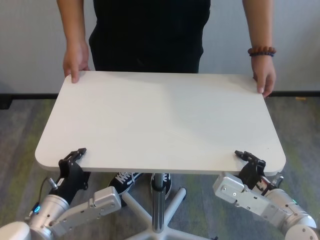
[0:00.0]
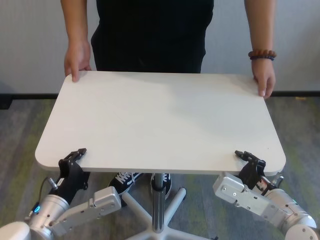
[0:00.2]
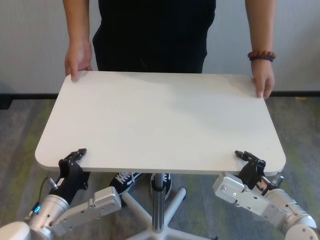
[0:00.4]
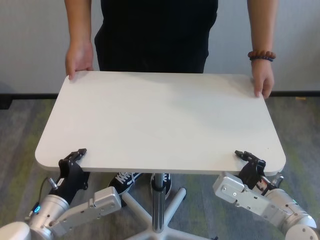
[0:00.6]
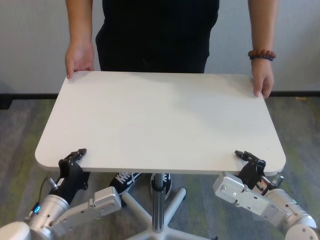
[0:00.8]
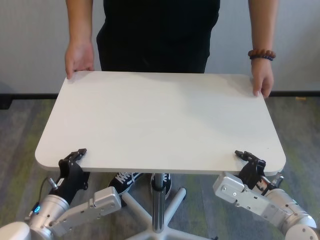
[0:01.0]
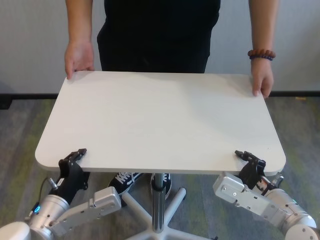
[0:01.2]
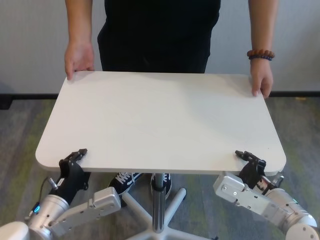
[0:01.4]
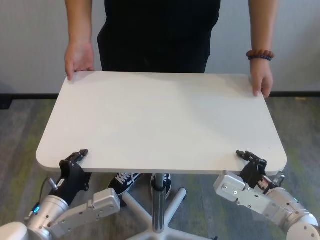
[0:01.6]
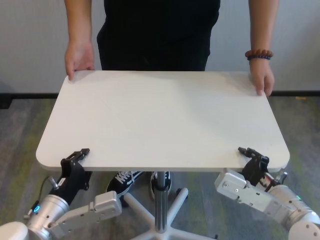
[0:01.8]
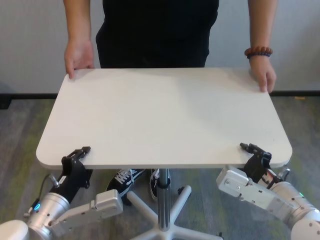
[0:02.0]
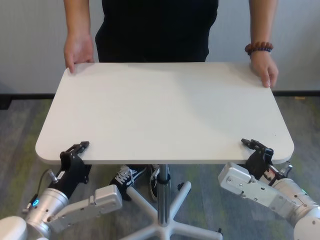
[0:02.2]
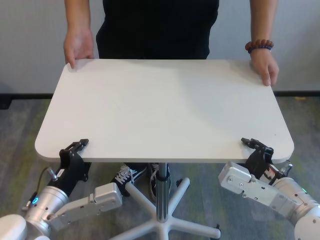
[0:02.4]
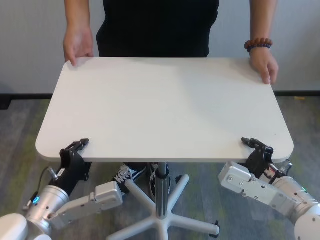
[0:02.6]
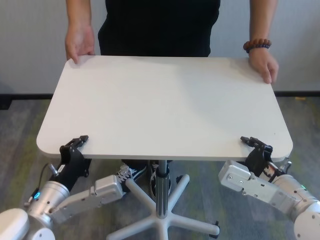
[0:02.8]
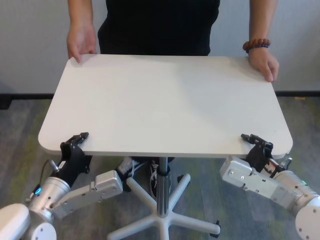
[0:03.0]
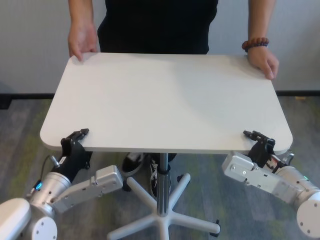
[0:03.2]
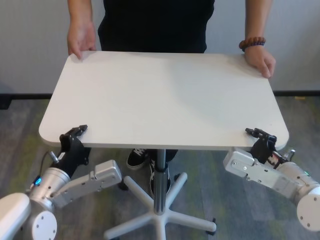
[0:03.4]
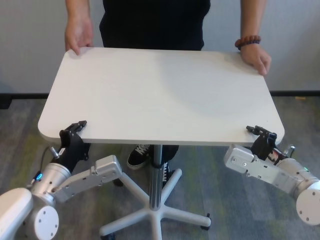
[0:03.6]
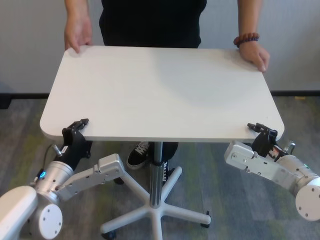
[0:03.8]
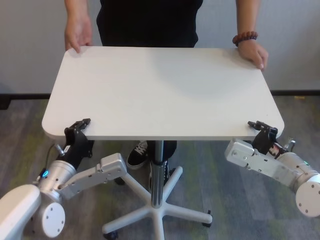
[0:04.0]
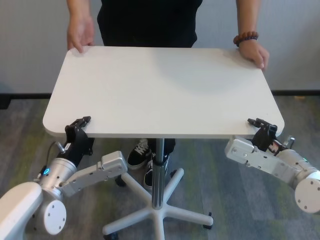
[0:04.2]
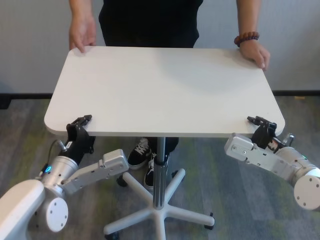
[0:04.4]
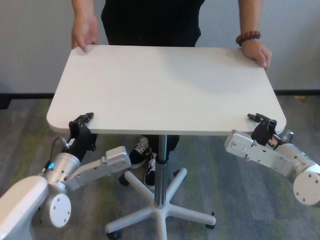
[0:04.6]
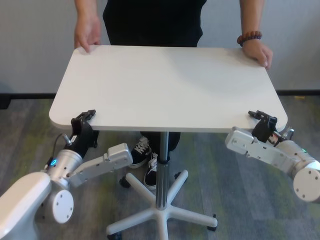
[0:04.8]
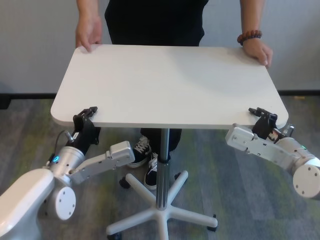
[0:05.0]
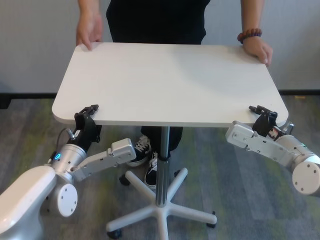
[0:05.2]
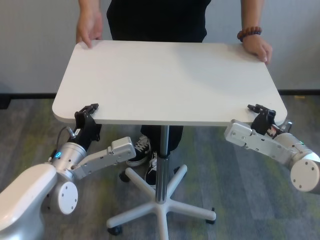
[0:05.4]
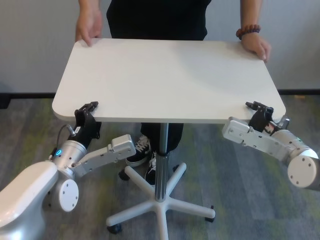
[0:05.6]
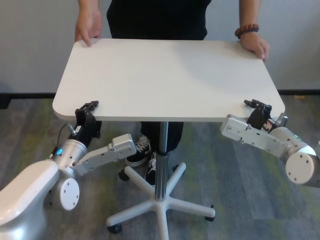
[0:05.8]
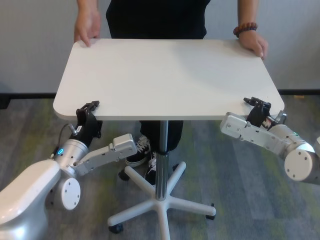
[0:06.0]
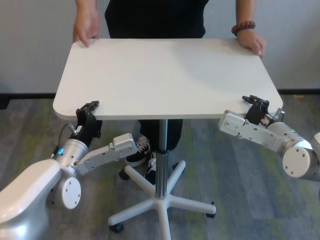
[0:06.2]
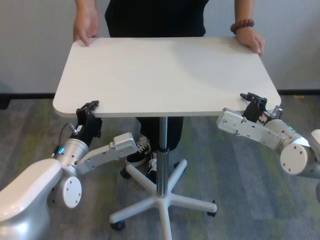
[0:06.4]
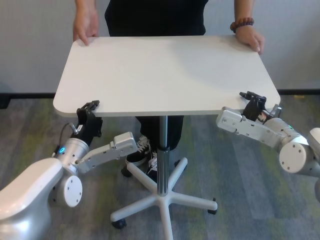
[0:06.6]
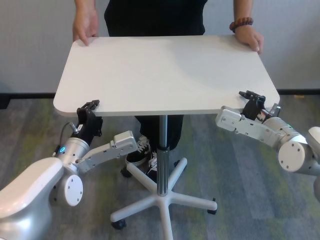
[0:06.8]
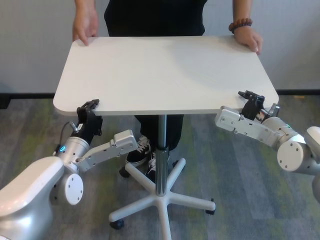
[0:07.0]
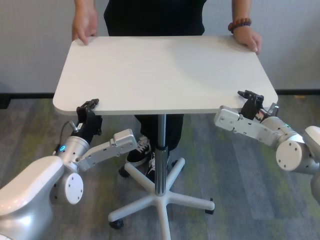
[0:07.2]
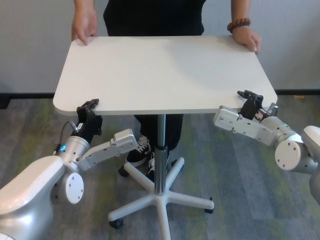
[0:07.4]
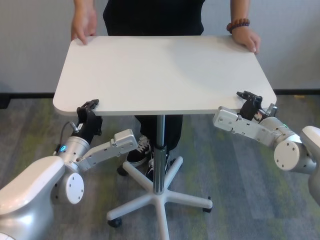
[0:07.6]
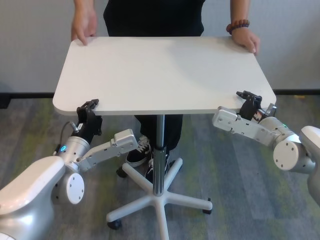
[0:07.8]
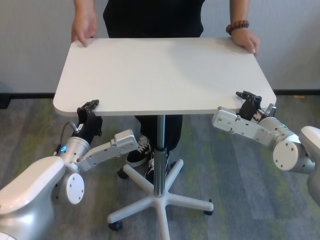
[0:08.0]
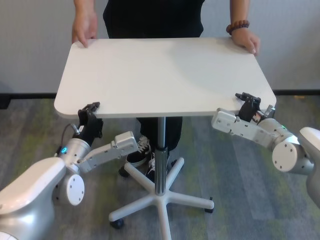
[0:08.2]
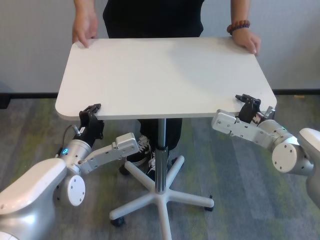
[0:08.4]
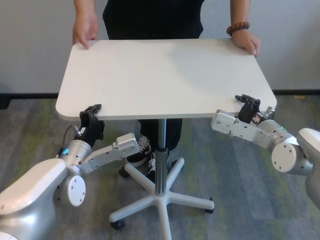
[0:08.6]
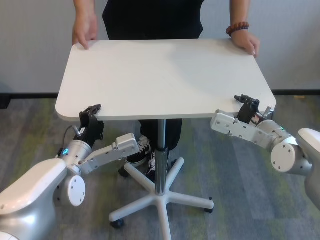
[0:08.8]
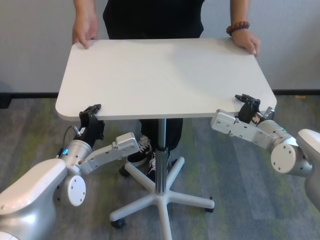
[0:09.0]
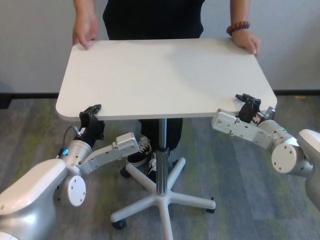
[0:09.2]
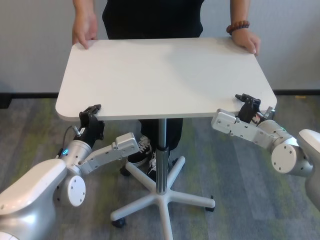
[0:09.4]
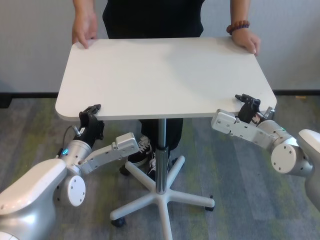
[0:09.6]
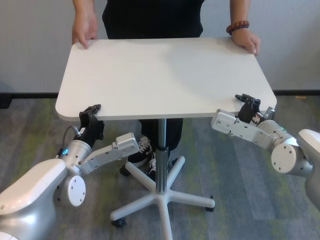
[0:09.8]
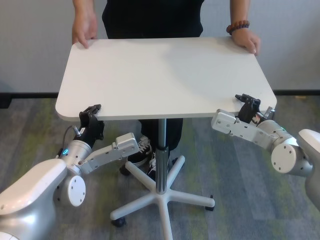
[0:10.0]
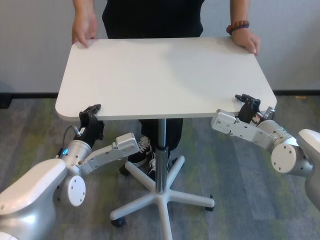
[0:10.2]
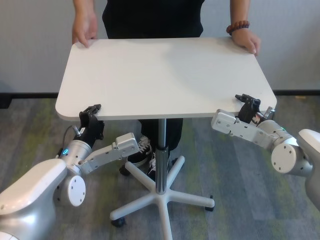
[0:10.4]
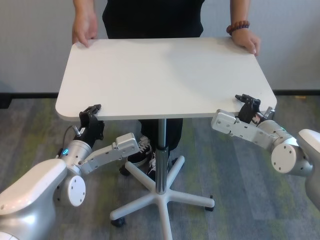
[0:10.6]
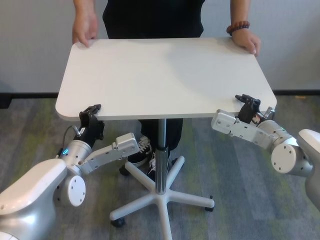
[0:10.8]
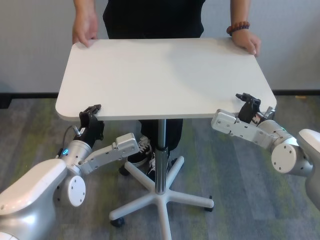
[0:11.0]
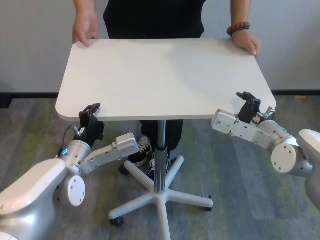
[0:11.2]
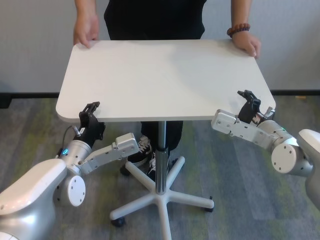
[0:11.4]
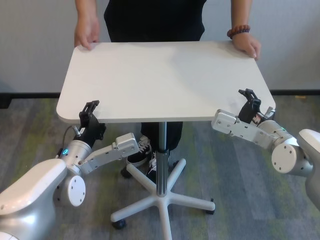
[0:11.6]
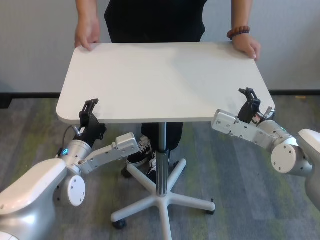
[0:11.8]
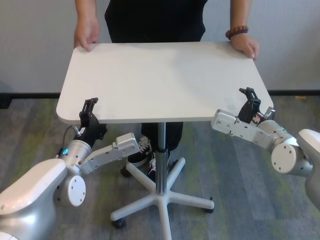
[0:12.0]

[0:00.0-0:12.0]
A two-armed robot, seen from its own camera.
Task of the whole recording: human machine collaborative table moving.
Step, 0:00.8 to 0:11.8: Move the table forward with both grippers.

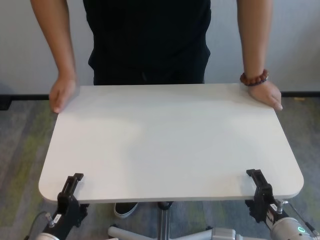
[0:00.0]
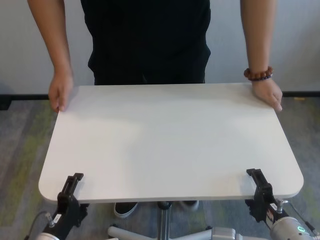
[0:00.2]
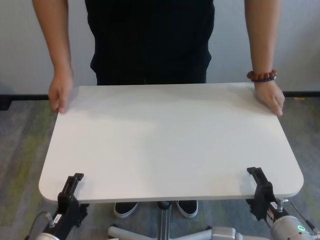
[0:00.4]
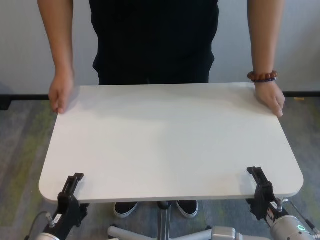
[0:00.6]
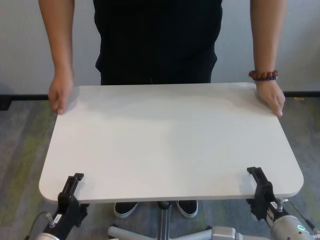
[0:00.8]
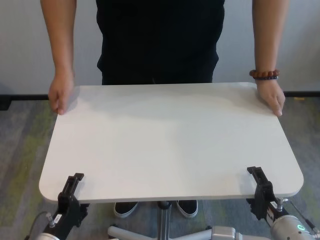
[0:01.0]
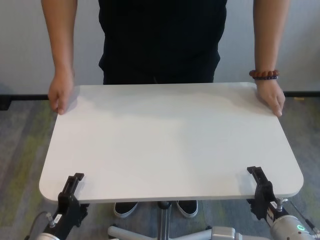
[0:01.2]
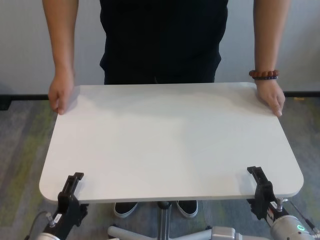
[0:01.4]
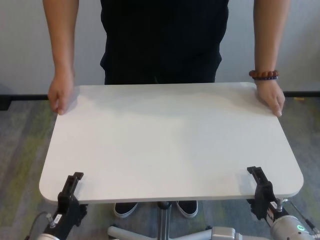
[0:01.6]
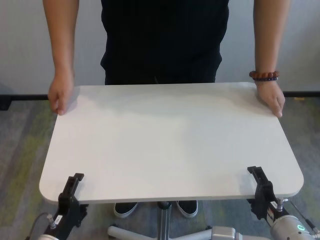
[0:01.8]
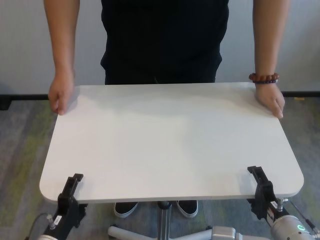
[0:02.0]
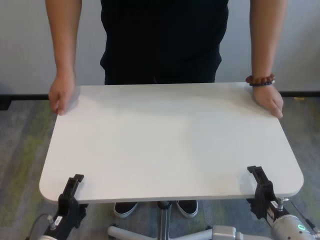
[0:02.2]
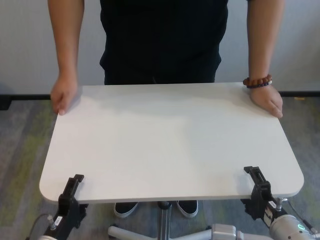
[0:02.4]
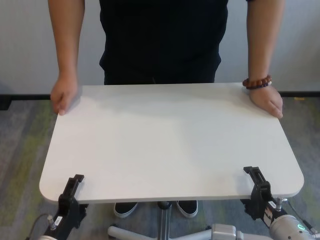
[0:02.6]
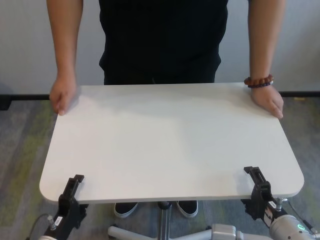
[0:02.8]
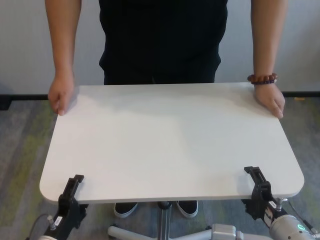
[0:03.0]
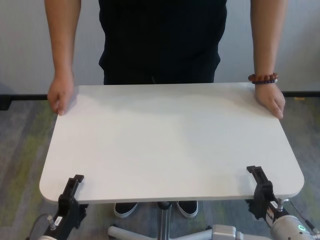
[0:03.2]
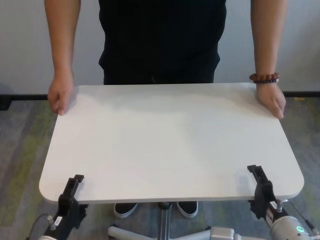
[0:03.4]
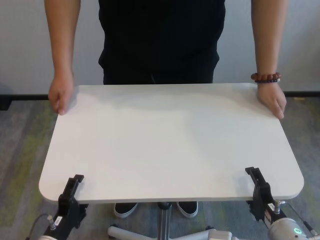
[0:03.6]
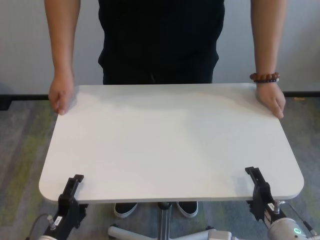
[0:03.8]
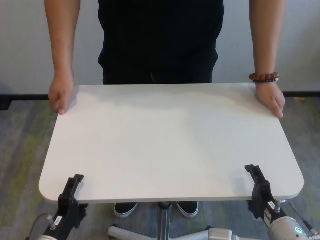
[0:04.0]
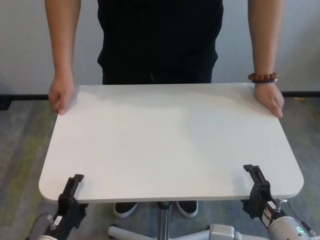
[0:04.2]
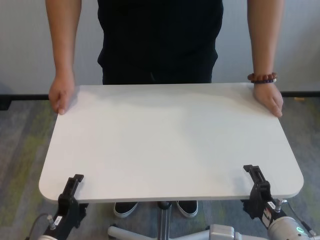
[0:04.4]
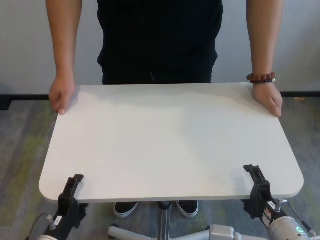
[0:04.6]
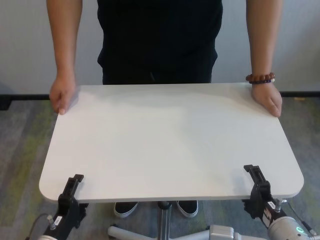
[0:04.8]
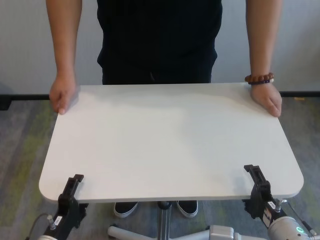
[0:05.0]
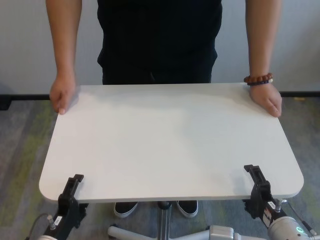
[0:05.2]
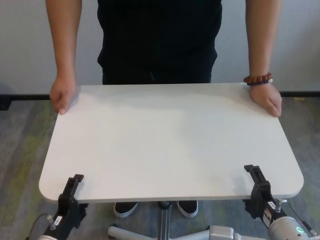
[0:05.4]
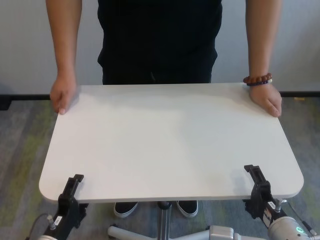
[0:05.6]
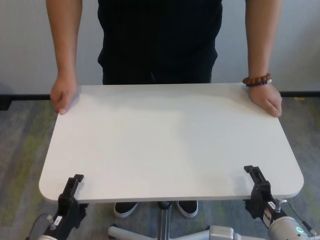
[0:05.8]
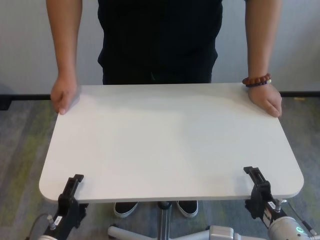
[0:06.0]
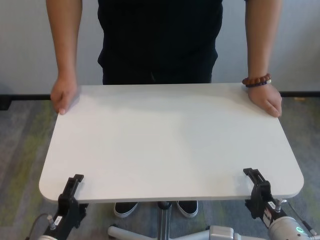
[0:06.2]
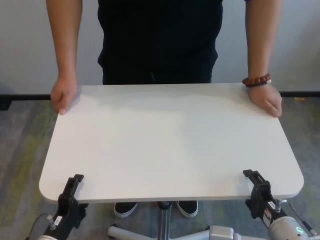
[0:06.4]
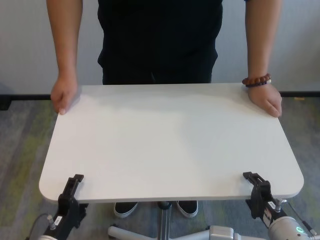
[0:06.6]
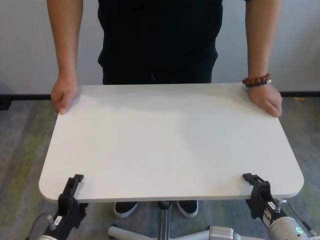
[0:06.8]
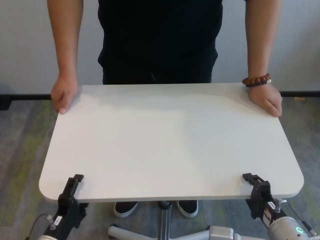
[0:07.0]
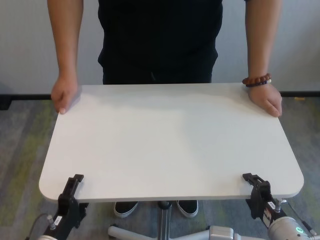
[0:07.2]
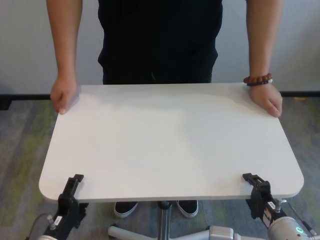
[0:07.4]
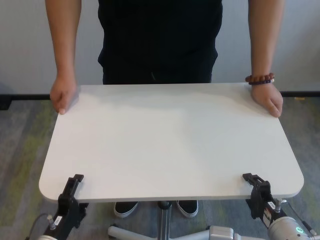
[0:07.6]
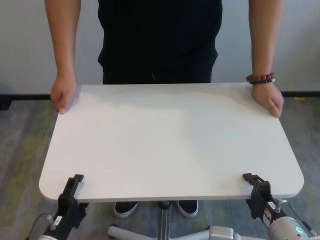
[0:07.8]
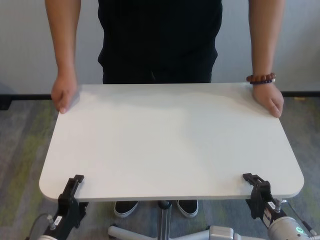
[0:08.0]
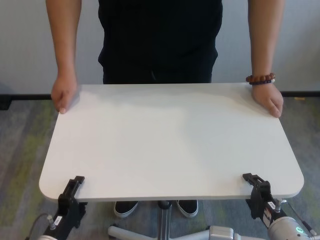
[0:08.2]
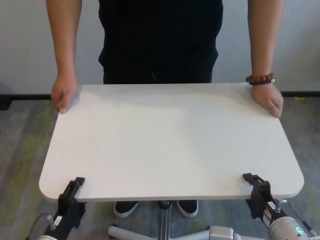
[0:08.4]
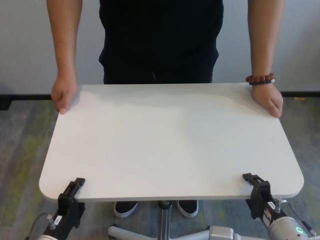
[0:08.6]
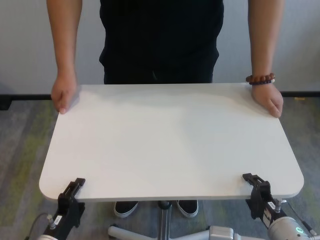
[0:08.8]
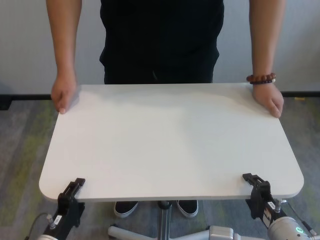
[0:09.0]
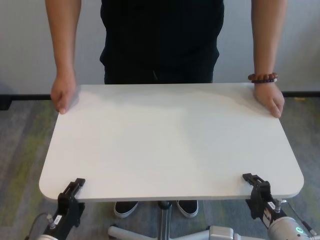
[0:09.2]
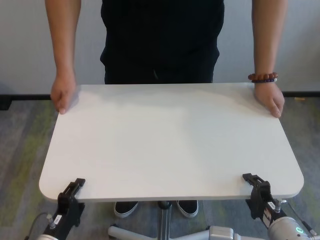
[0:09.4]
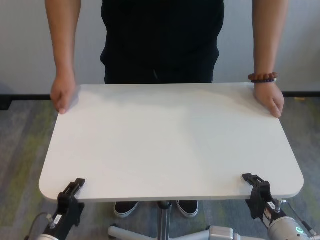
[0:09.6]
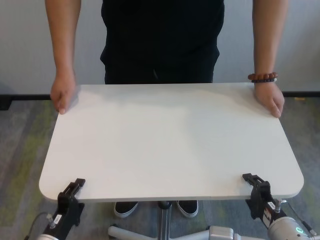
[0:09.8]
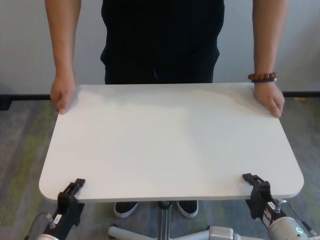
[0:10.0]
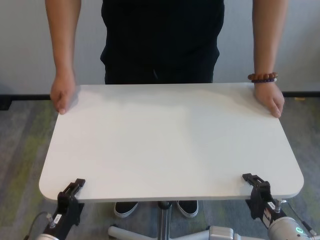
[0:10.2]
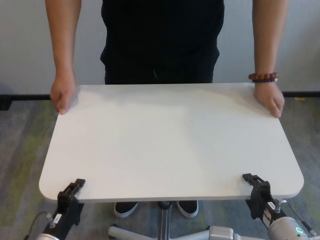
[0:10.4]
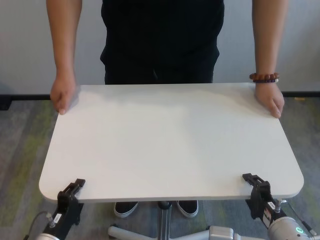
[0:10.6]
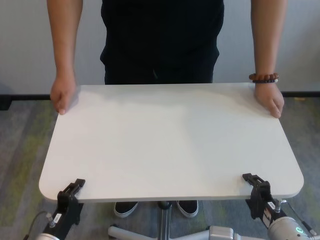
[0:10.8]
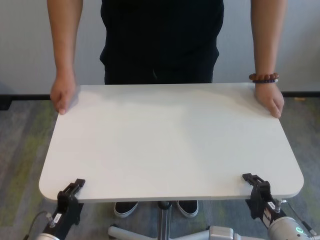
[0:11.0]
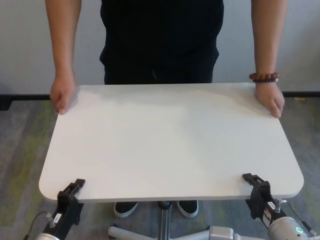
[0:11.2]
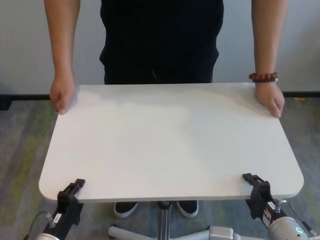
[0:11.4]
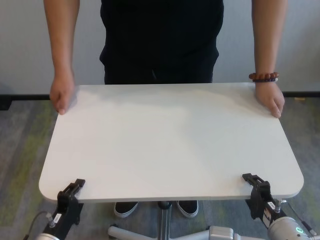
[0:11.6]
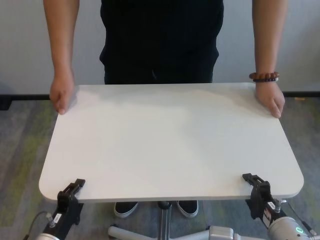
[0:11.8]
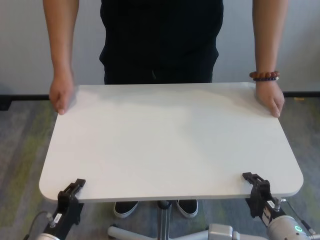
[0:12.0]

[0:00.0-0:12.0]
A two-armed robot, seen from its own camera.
Task of the whole recording: human machine collaborative table moving.
Step, 0:00.0 to 0:09.8: Grasp the table with both grippers.
